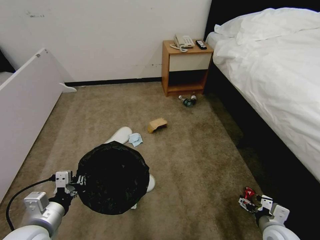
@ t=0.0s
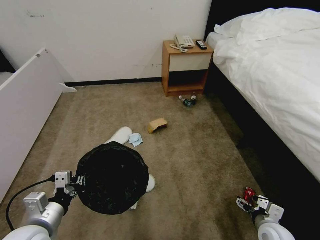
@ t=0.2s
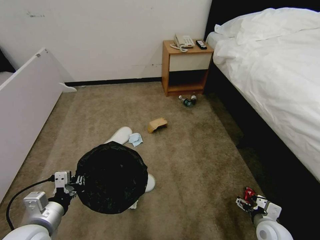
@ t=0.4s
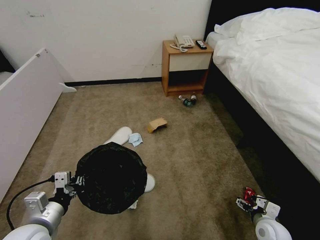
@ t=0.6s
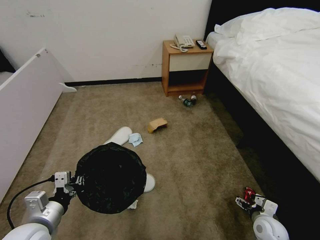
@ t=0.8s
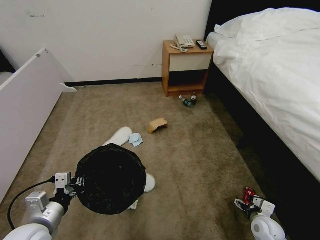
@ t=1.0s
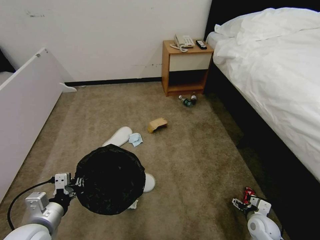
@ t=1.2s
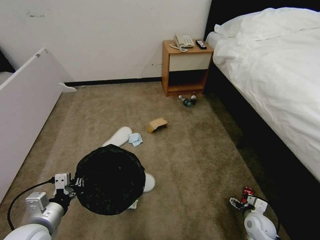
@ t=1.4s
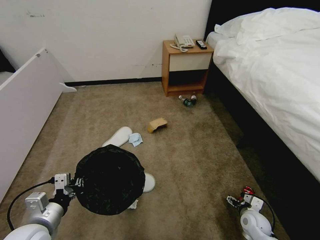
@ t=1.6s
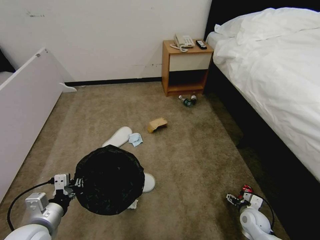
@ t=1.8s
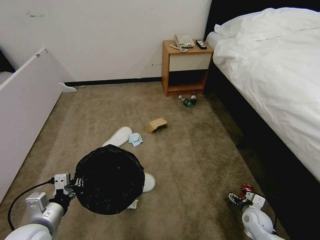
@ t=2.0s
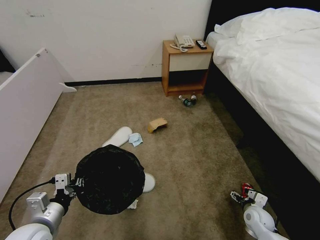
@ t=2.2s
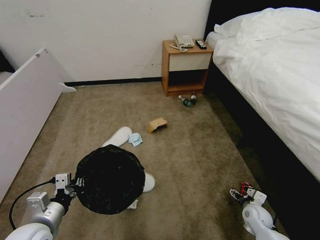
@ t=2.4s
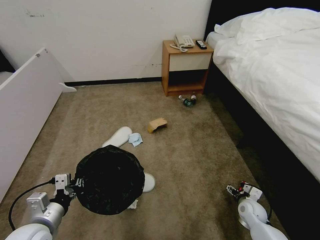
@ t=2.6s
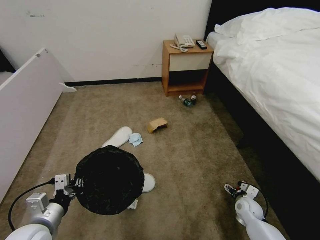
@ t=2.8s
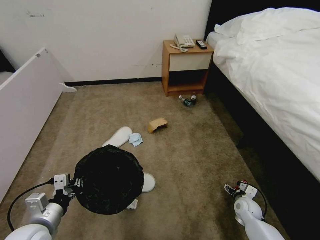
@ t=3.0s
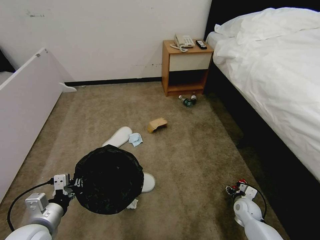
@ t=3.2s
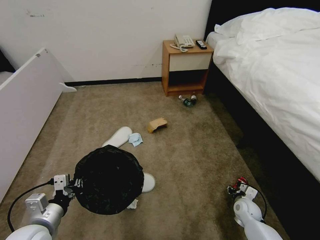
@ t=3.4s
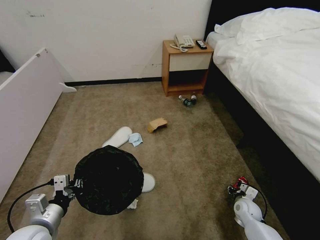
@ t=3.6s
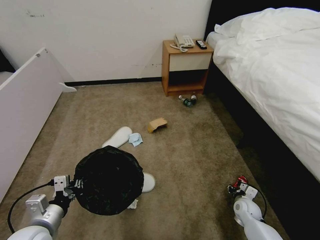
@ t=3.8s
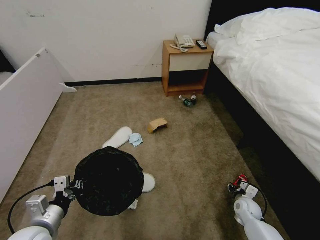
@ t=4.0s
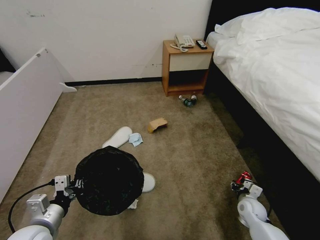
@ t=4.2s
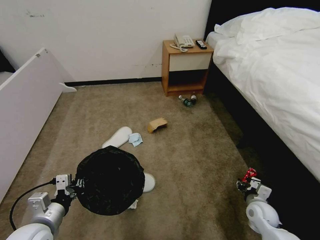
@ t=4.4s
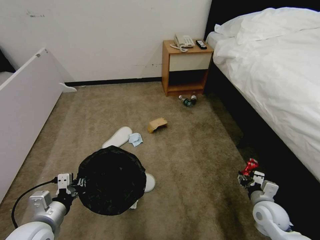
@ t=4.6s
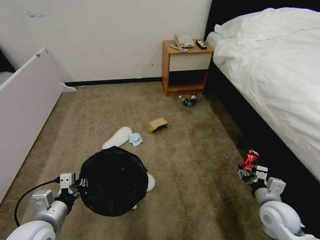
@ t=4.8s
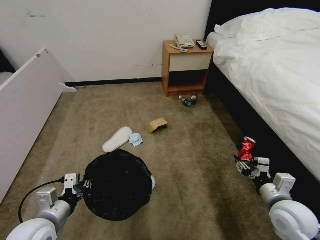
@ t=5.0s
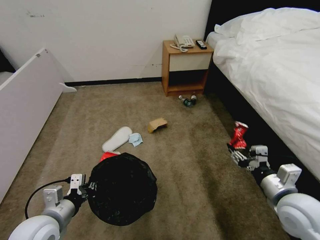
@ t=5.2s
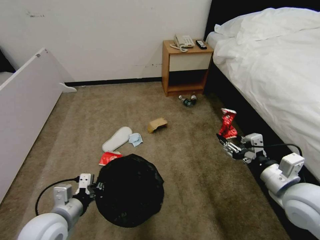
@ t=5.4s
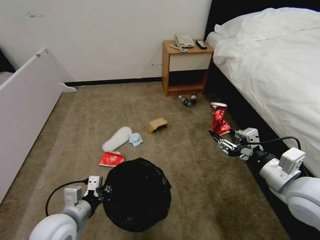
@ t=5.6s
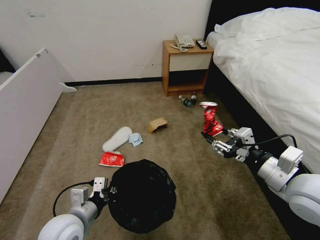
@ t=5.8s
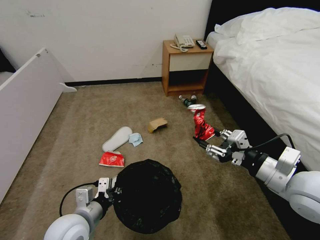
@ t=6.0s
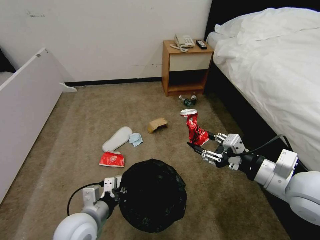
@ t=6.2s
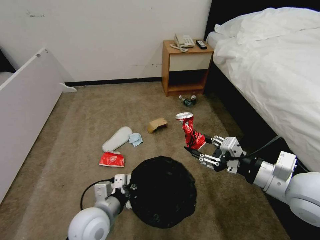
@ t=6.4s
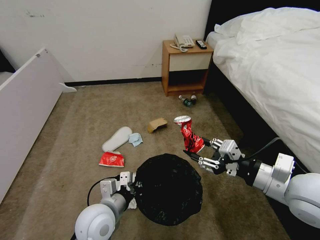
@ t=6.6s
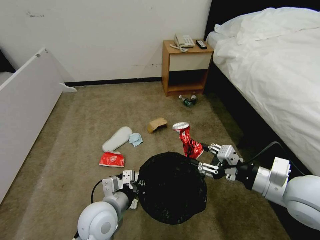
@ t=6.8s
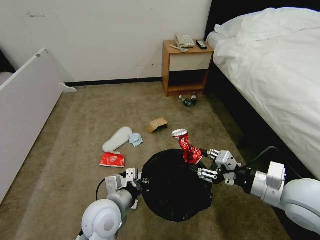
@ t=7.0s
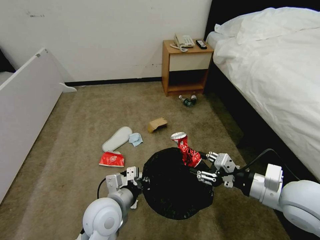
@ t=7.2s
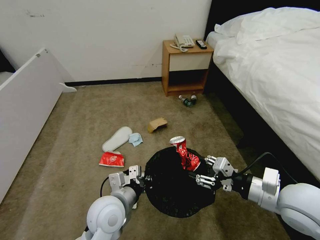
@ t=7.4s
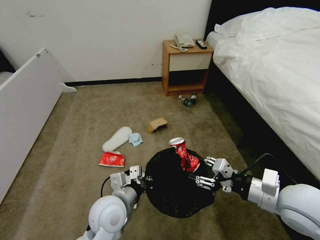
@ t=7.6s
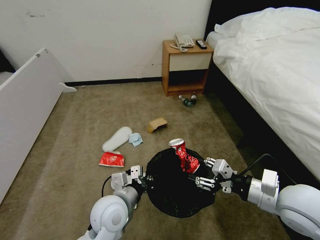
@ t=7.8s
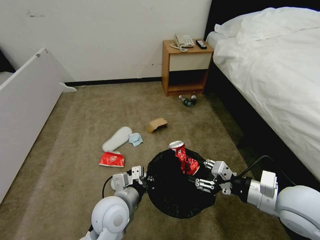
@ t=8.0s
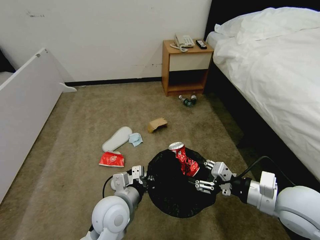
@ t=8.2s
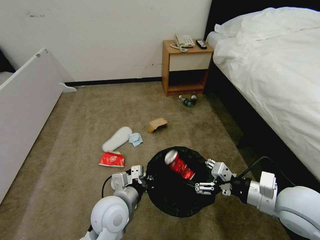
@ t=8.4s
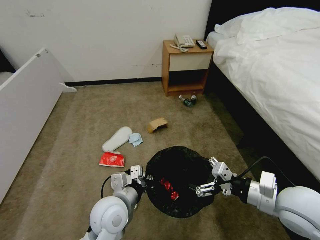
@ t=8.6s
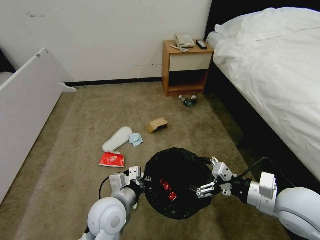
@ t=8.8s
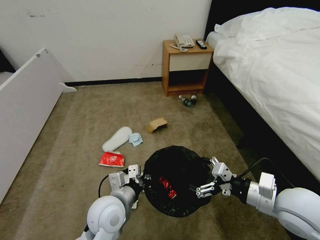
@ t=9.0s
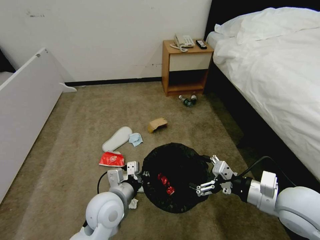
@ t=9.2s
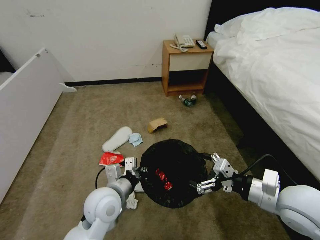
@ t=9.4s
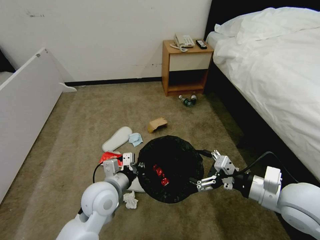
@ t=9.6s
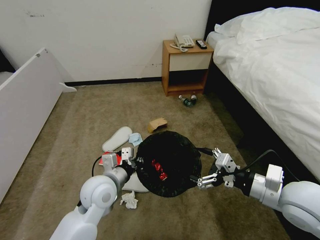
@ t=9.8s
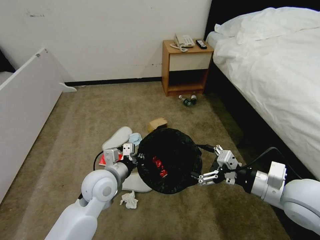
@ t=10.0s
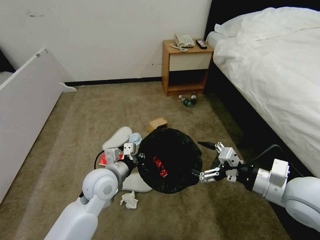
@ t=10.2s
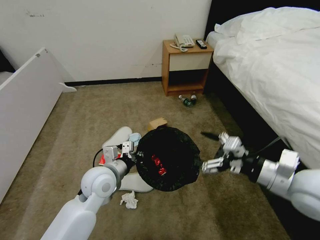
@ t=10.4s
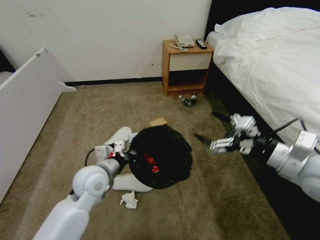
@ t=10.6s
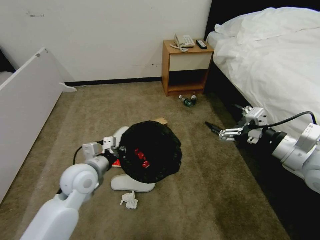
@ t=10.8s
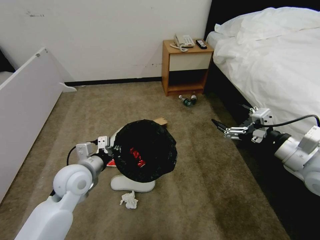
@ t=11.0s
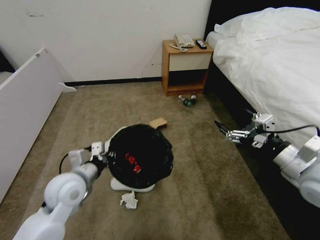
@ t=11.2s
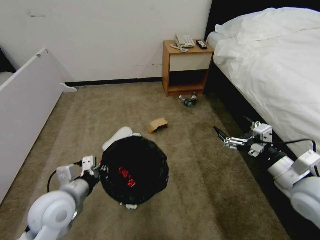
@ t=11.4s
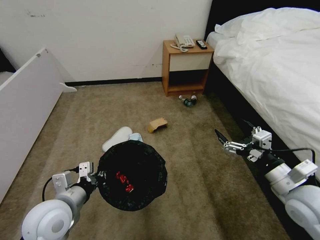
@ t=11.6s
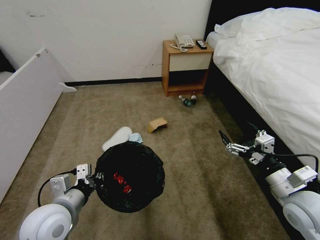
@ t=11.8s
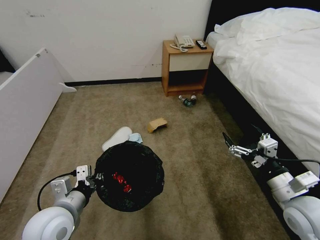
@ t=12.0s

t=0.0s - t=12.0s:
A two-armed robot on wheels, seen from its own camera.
Task of the whole recording: Pick up the trash bin, then pick up the garbage from the floor and place it into the trash bin.
t=0.0s - t=1.6s: The right gripper is displaced downward and forward by approximately 15 cm.
t=1.6s - t=3.0s: The right gripper shifts approximately 5 cm forward.
t=3.0s - t=4.4s: The right gripper goes approximately 5 cm upward, and closes its fingers.
t=4.4s - t=6.0s: The left gripper moves to the right, about 10 cm, while the right gripper goes roughly 30 cm upward.
t=6.0s - t=7.6s: The left gripper heads to the right, covering approximately 10 cm.
t=7.6s - t=9.0s: The right gripper opens up.
t=9.0s - t=10.4s: The right gripper moves approximately 5 cm. The left gripper moves forward, approximately 10 cm.
t=10.4s - t=12.0s: The right gripper moves downward, about 10 cm. Meanwhile the left gripper shifts roughly 15 cm backward and to the left.

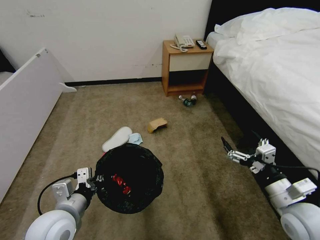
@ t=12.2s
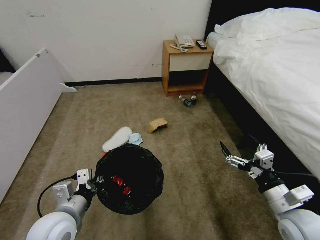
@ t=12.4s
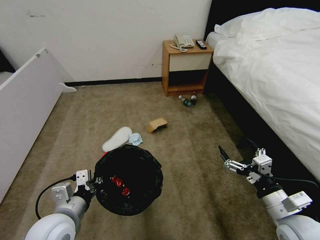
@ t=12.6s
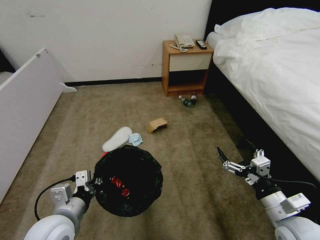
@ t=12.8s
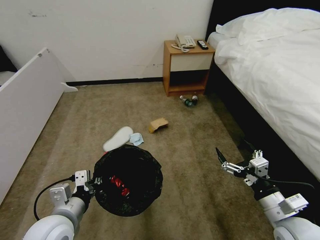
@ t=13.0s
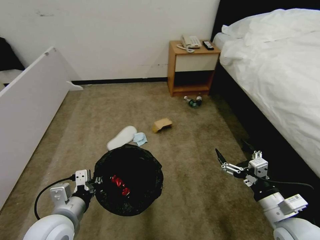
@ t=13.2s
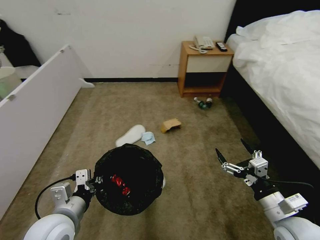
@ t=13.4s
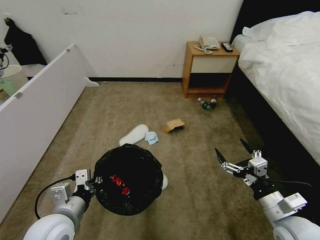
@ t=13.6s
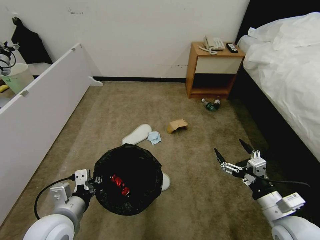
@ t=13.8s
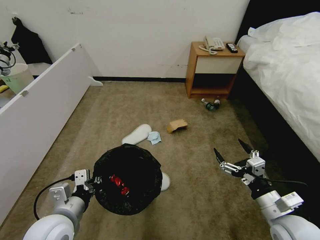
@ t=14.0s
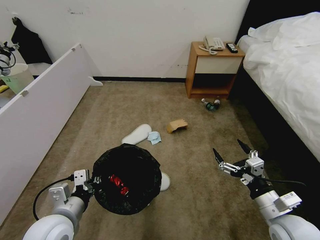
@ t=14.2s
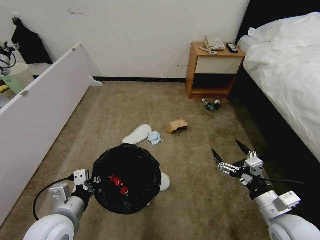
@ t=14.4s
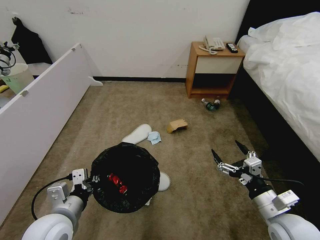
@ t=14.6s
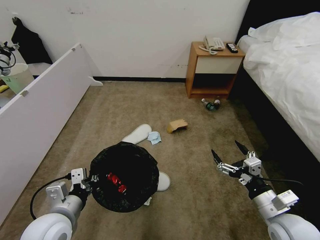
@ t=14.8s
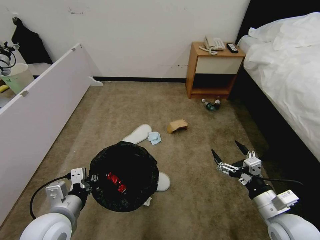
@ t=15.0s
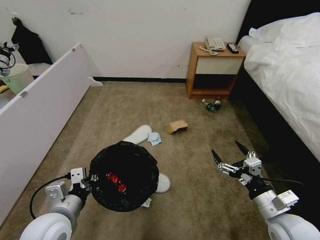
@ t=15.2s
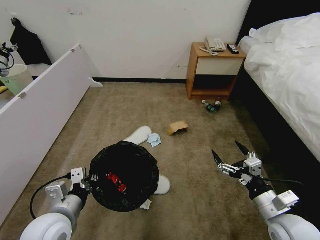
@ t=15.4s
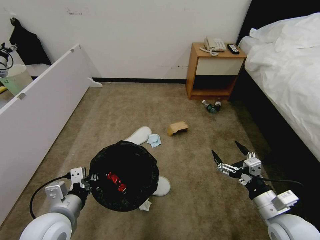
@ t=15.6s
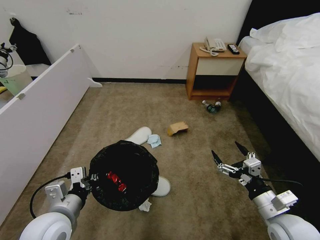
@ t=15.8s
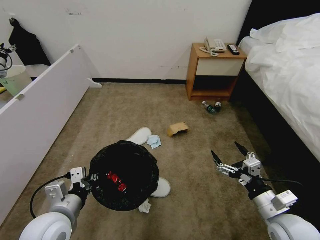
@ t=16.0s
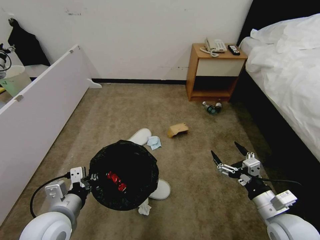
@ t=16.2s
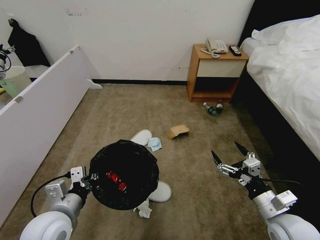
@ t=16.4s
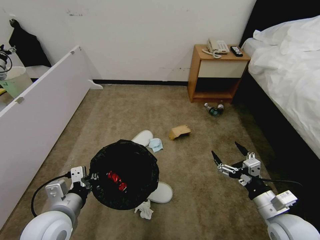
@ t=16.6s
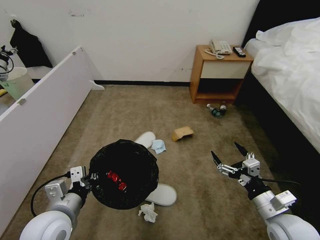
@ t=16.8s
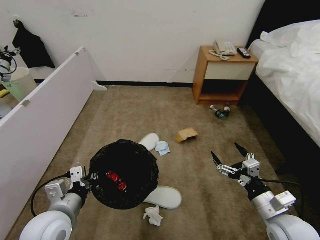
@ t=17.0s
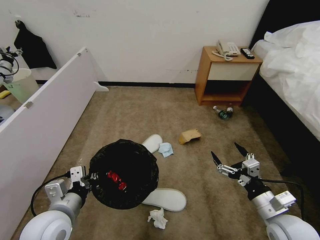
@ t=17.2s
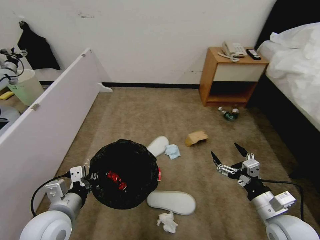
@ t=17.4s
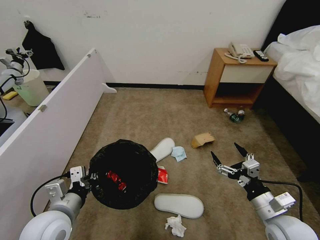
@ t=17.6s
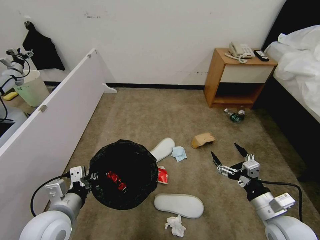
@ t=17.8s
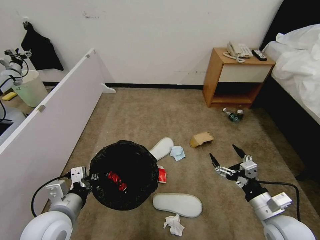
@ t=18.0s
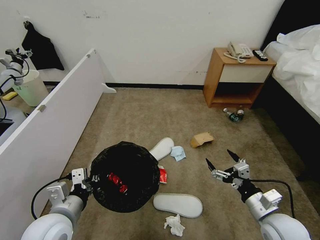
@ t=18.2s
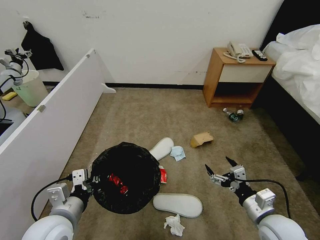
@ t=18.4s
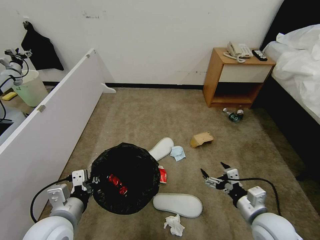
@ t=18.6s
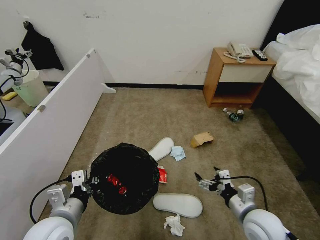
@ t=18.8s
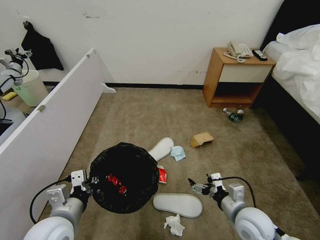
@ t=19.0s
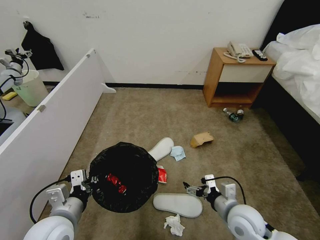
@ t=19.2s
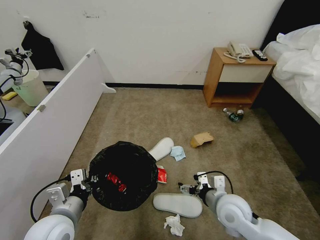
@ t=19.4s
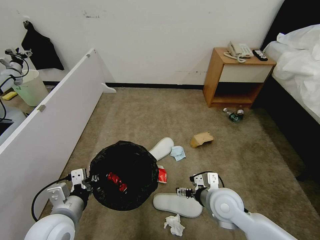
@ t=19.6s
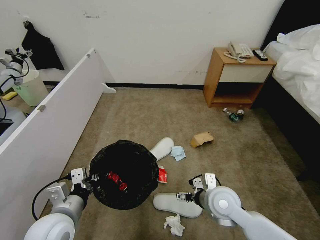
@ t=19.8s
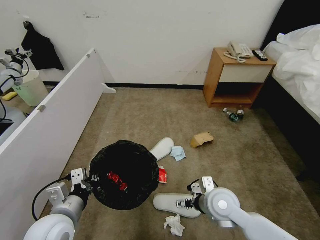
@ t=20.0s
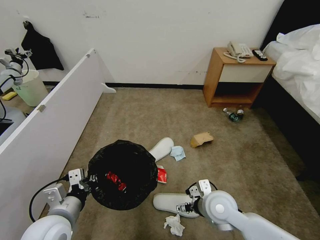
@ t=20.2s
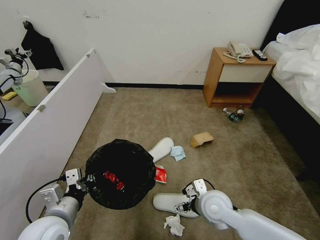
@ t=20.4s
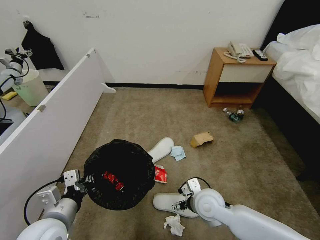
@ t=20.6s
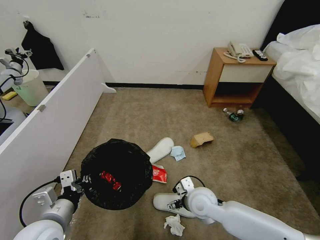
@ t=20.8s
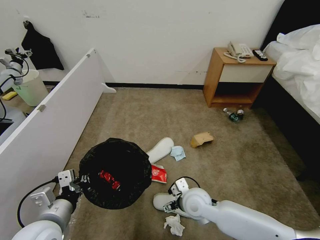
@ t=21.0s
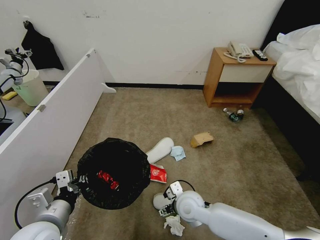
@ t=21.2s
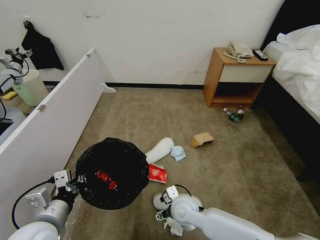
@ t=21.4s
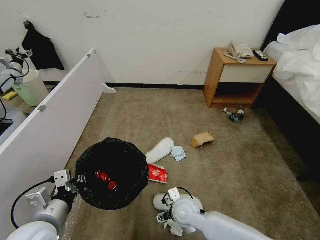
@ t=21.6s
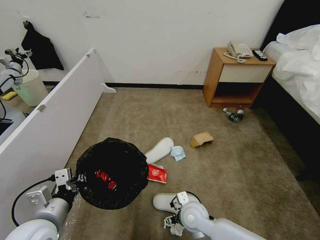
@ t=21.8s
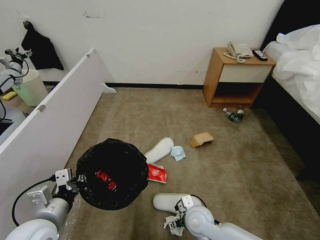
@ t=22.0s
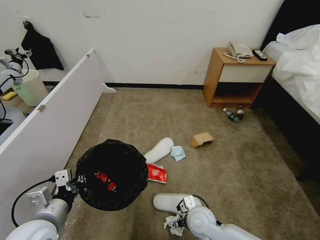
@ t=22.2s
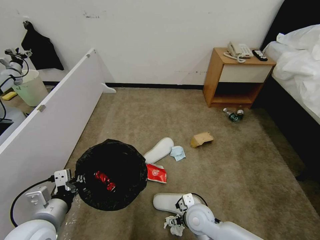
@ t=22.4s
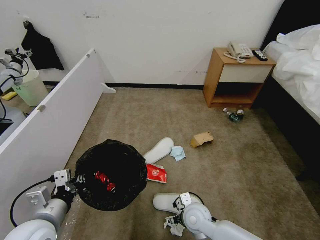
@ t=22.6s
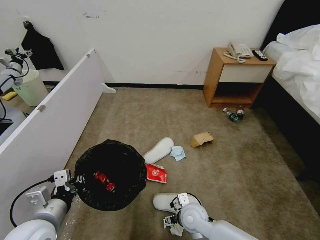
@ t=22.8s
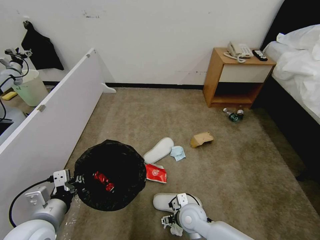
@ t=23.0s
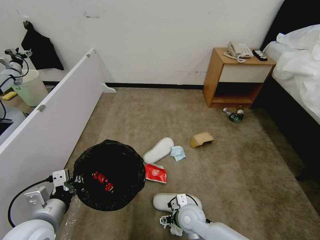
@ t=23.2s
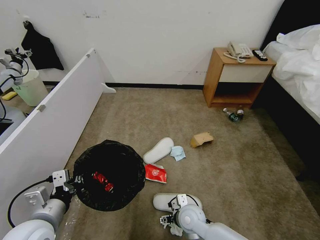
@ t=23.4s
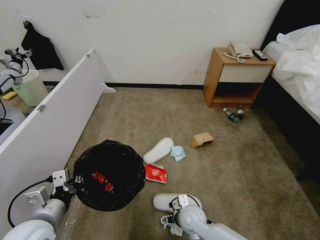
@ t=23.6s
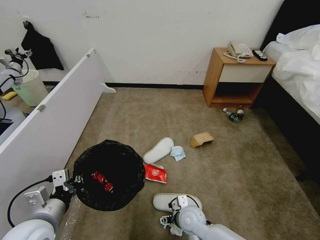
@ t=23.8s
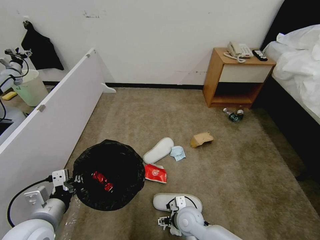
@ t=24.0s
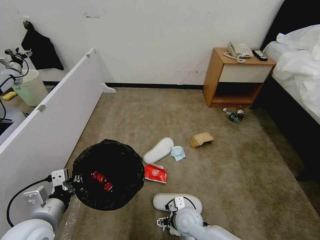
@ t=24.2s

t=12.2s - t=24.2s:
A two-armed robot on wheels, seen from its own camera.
Task of the whole recording: Pick up the trash bin, then pick up the garbage from the floor and place it into the trash bin.
t=13.8s - t=15.2s: Both grippers stay about where they are.
t=15.2s - t=16.6s: Both grippers stay about where they are.
t=18.2s - t=19.8s: The right gripper is displaced to the left and forward by roughly 15 cm.
t=19.8s - t=21.2s: The right gripper heads to the left and downward, covering approximately 10 cm.
t=21.2s - t=22.6s: The right gripper ends up roughly 5 cm from where it was.
t=22.6s - t=24.2s: The grippers move only a little.
